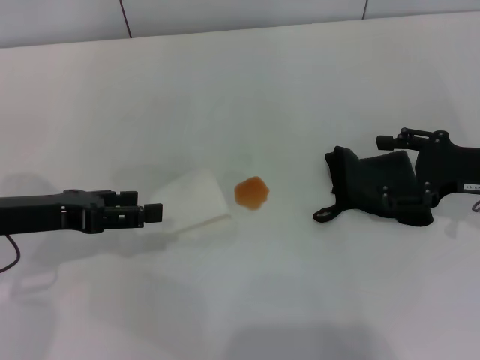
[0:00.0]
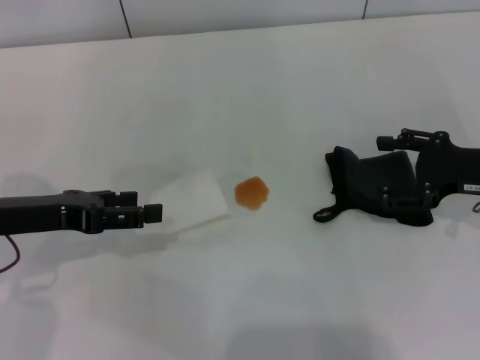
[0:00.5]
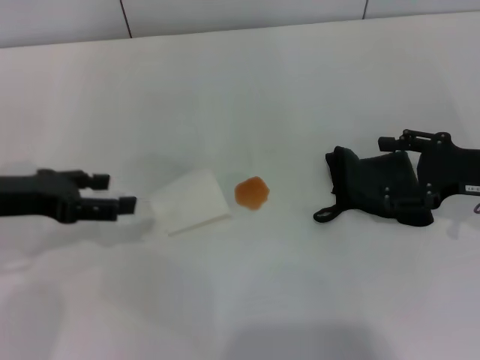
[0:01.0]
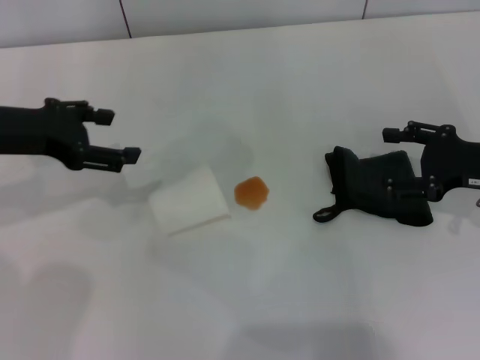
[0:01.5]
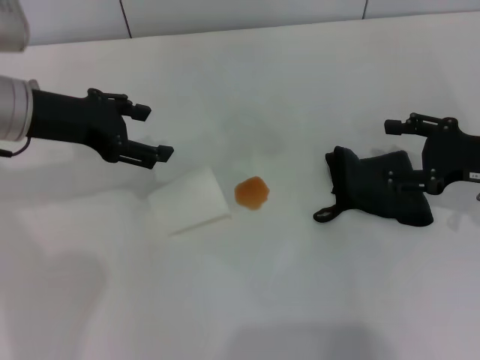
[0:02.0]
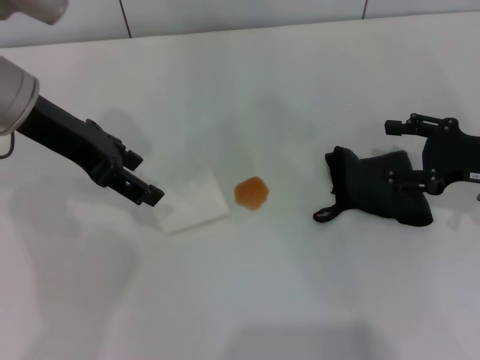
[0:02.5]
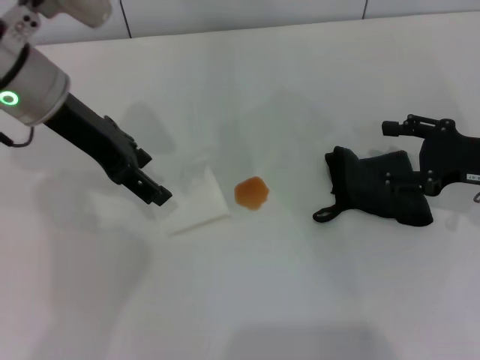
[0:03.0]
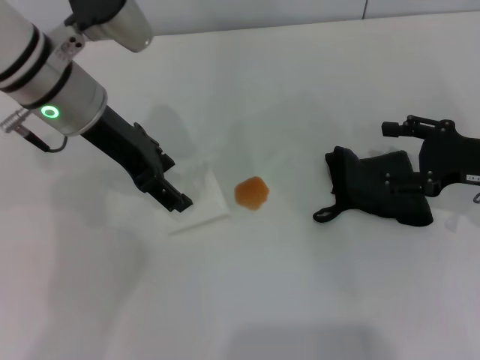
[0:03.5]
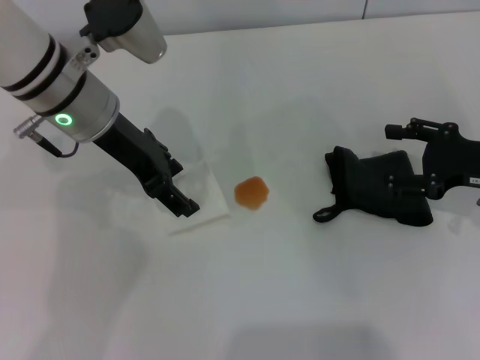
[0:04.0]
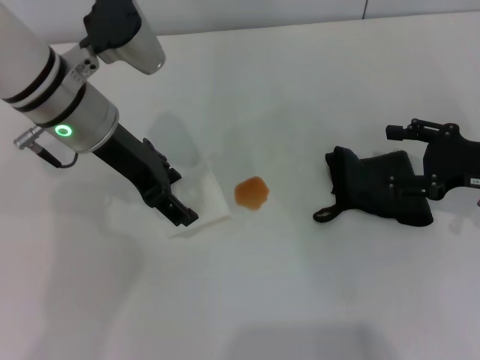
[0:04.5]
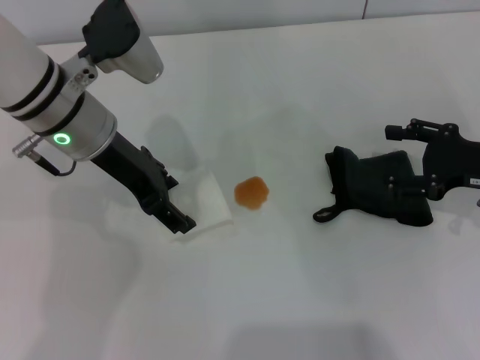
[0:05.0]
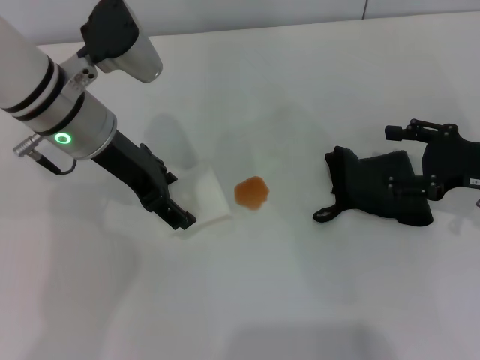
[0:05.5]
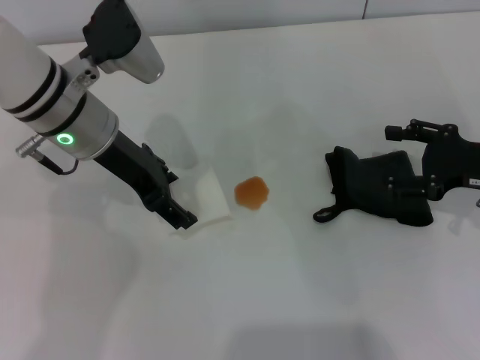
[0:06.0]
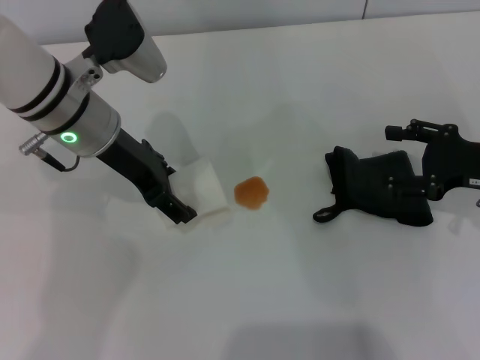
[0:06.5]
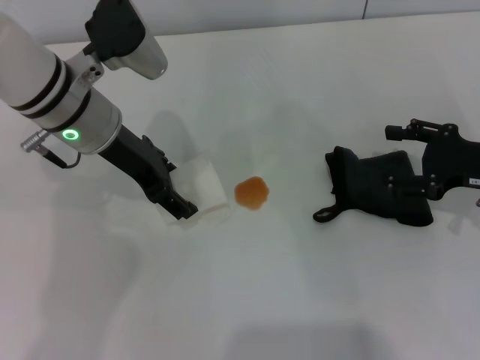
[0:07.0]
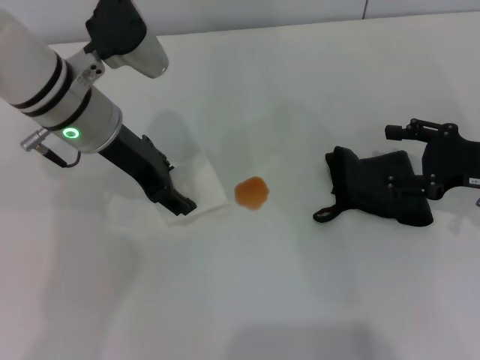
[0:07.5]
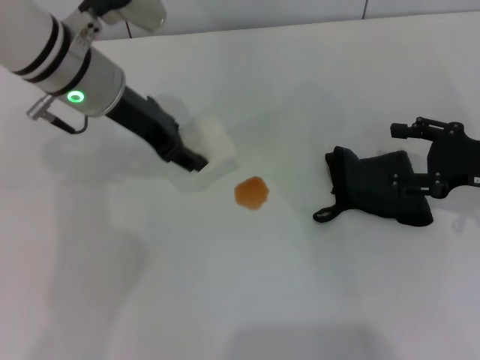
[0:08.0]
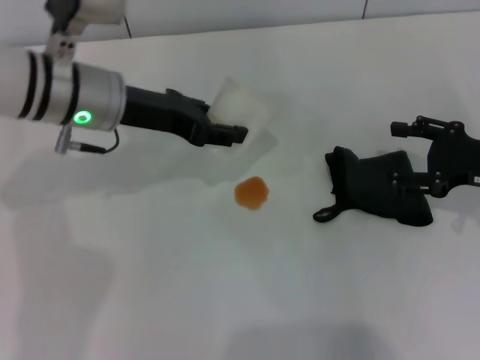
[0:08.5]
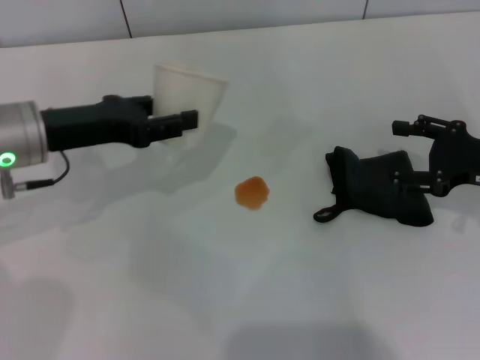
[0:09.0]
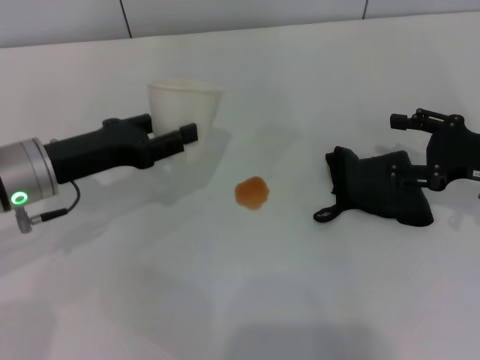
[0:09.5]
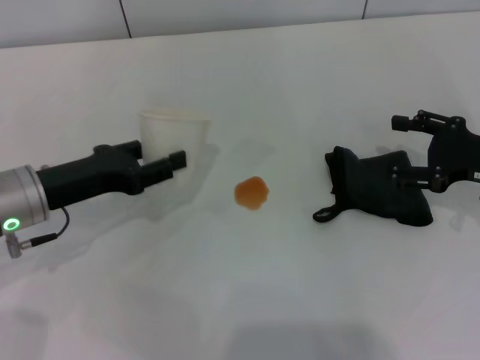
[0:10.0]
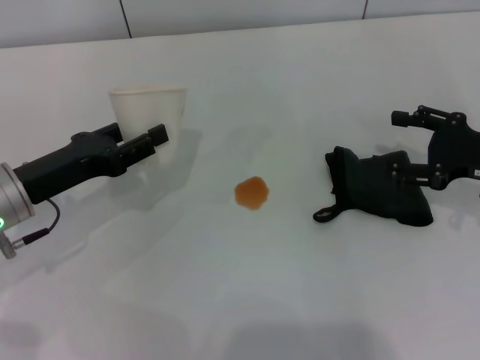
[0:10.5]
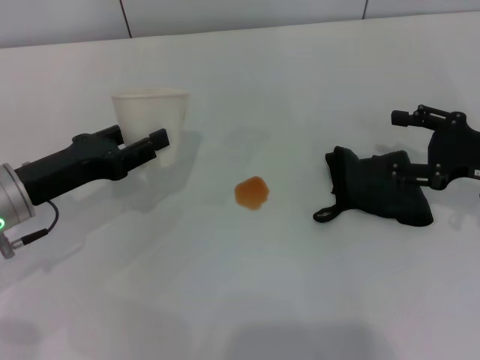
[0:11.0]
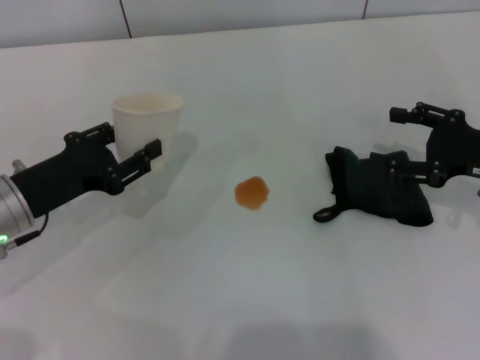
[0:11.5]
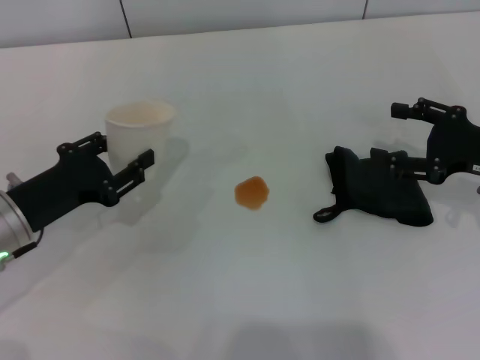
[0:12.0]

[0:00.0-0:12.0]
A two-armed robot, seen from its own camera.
Step, 0:00.0 to 0:07.0: Grasp the paper cup with the left gripper.
0:00.0 to 0:02.0: The left gripper is displaced forward and upward by about 10 cm.
0:02.0 to 0:04.0: The left gripper goes roughly 10 cm to the right.
0:04.0 to 0:06.0: The grippers move only a little.
0:06.0 to 0:08.0: The left gripper closes.
0:08.0 to 0:10.0: The left gripper travels to the left, downward and backward by roughly 15 cm.

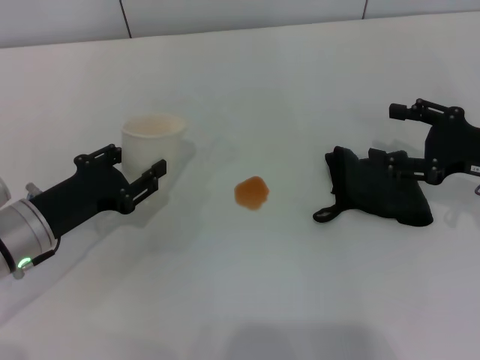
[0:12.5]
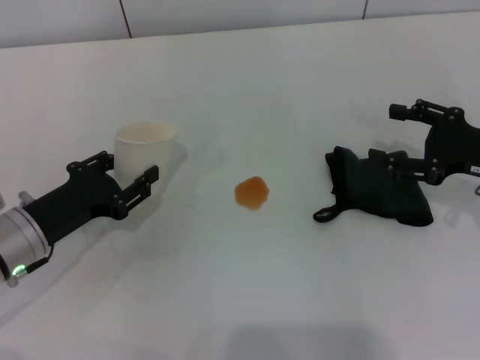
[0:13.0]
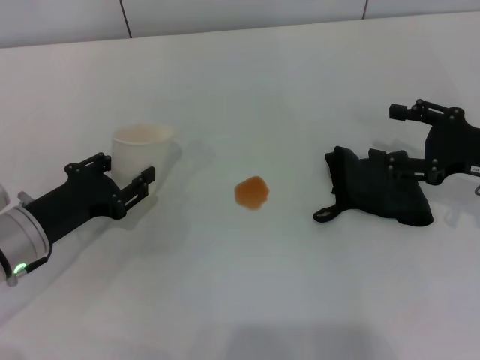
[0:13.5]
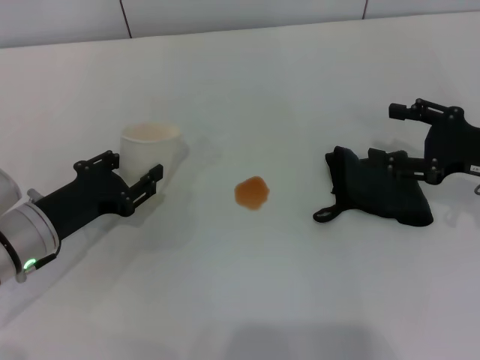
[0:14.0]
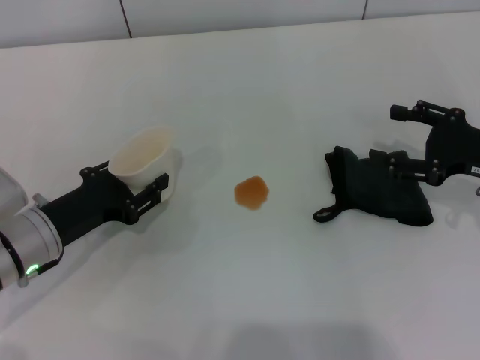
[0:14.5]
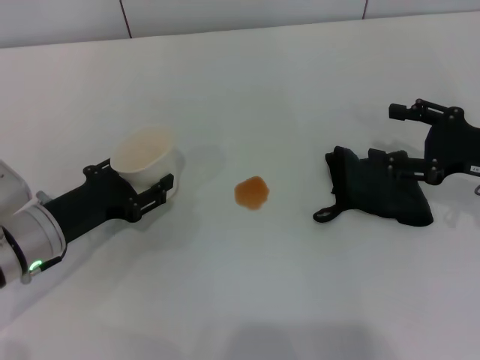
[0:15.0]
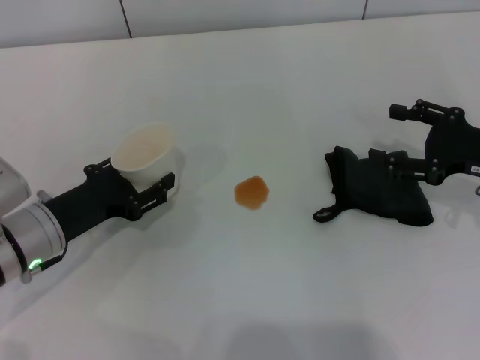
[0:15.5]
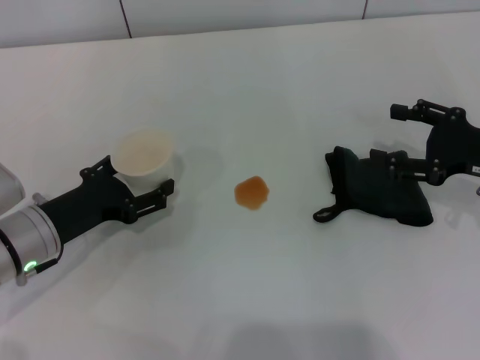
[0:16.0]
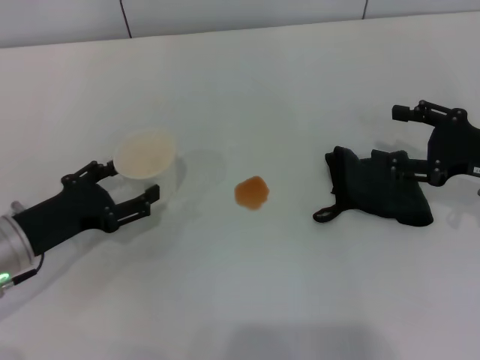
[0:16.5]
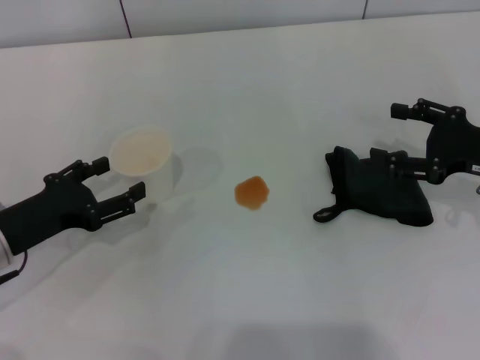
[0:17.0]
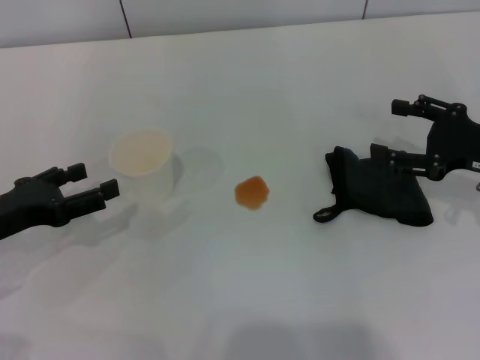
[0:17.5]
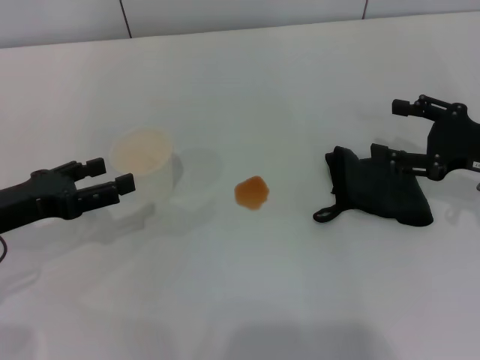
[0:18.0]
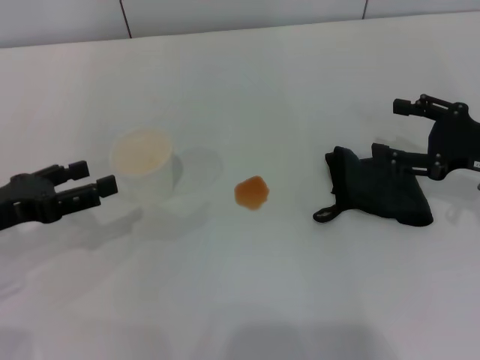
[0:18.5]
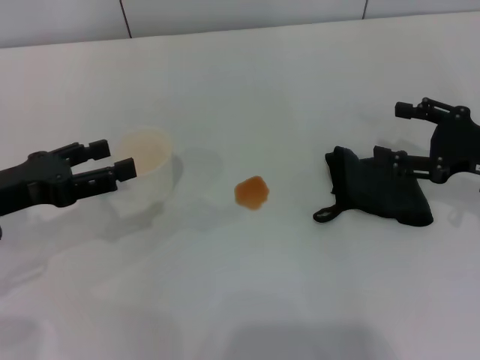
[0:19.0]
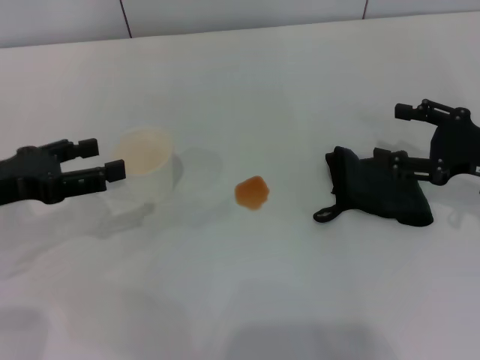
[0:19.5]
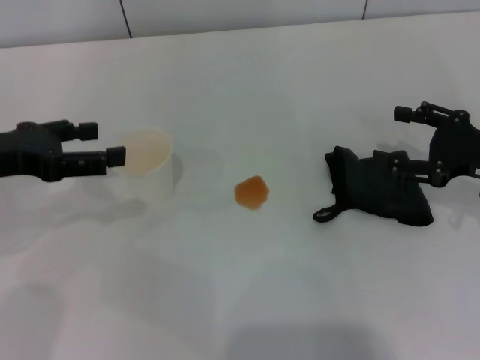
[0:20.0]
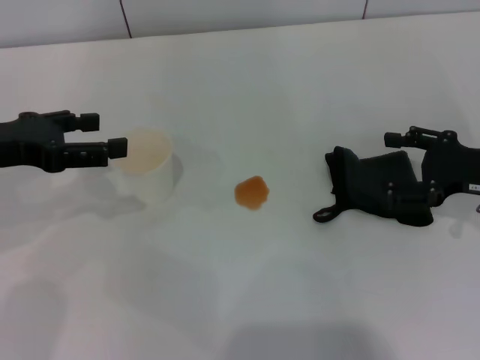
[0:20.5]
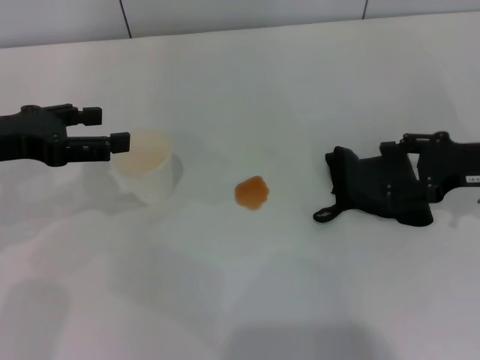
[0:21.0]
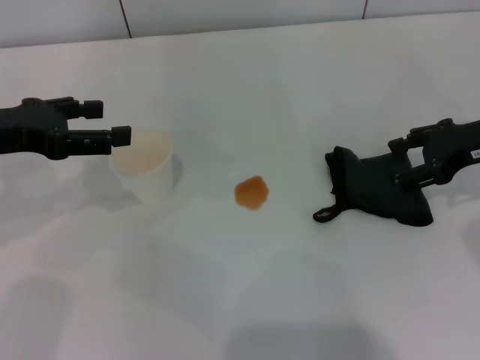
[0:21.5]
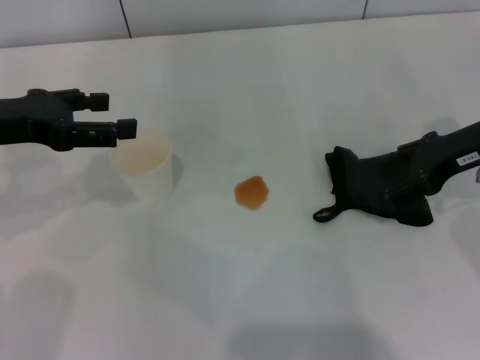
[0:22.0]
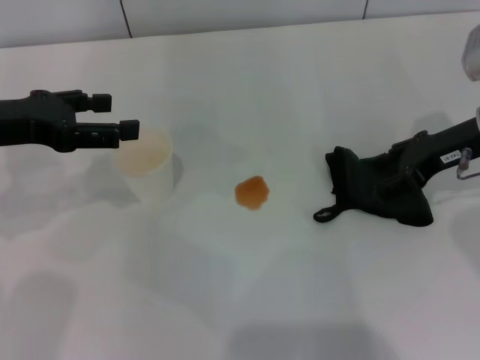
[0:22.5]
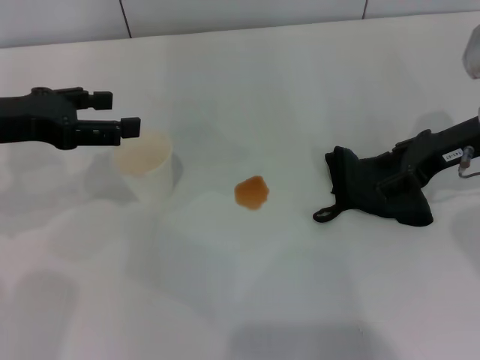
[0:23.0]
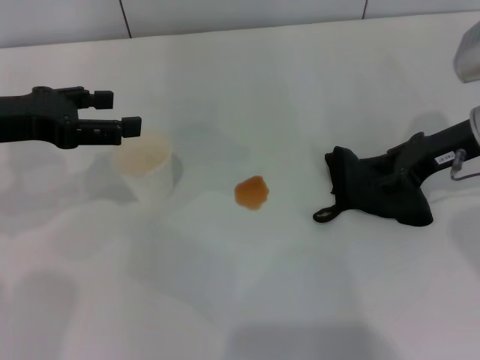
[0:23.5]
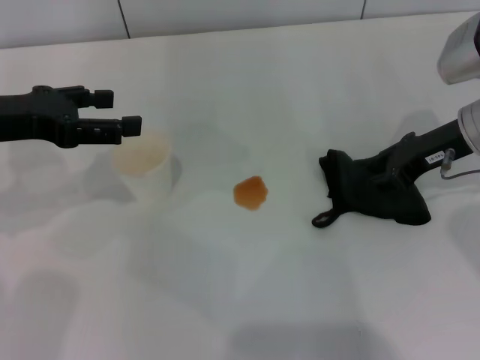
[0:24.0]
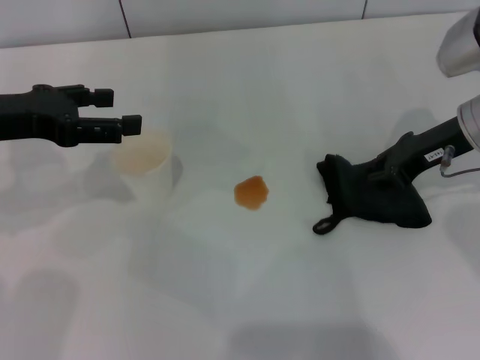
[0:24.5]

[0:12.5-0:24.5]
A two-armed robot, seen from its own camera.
Step, 0:12.5 to 0:17.0: Stand the paper cup upright with the left gripper.
0:12.5 to 0:14.5: Both grippers stay put.
0:14.5 to 0:16.5: The left gripper opens up.
0:16.5 to 0:18.5: The left gripper goes roughly 5 cm upward.
0:18.5 to 0:20.5: The left gripper travels upward and forward by about 10 cm.
0:20.5 to 0:22.5: The right gripper travels forward by about 5 cm.
0:22.5 to 0:24.5: The right gripper closes up.

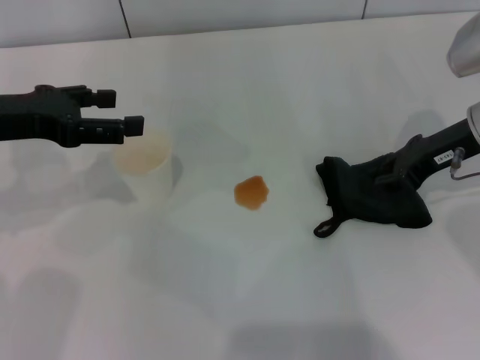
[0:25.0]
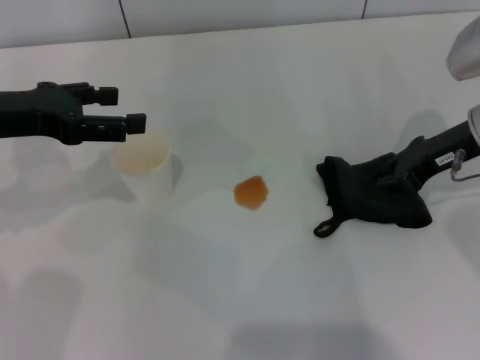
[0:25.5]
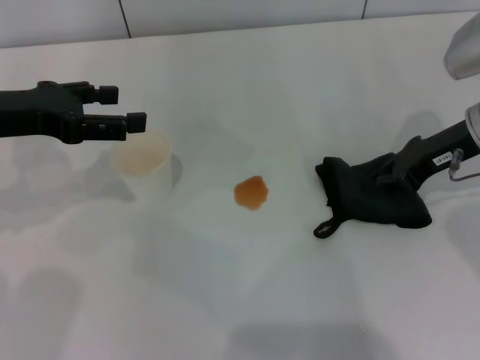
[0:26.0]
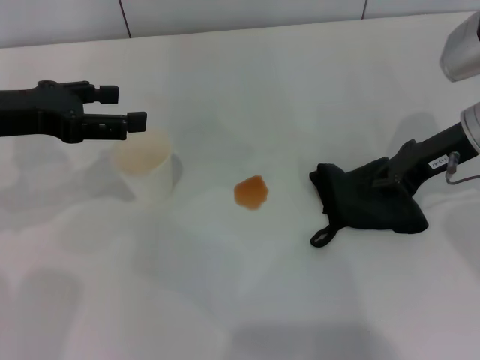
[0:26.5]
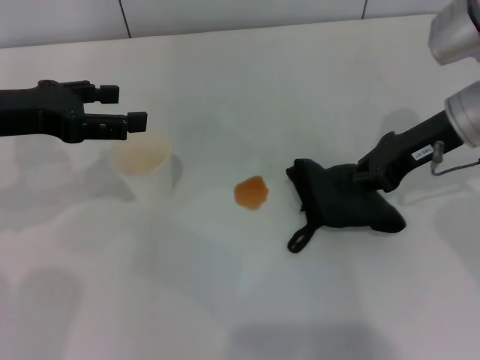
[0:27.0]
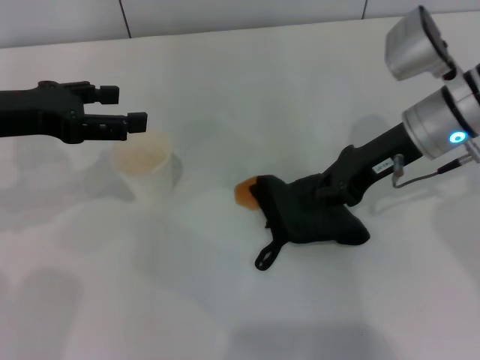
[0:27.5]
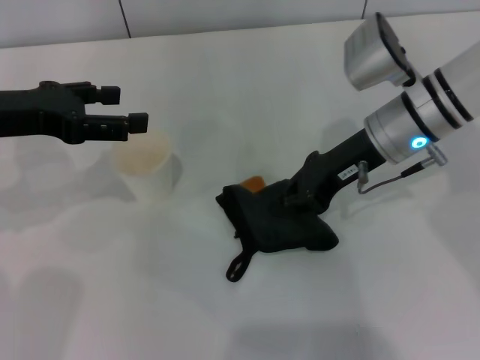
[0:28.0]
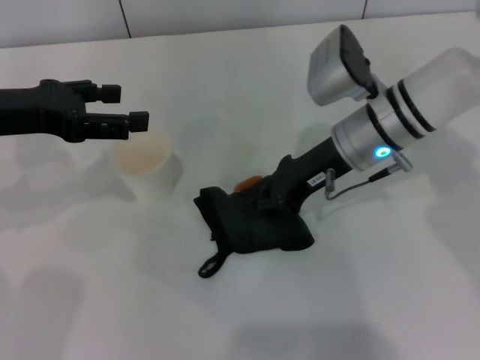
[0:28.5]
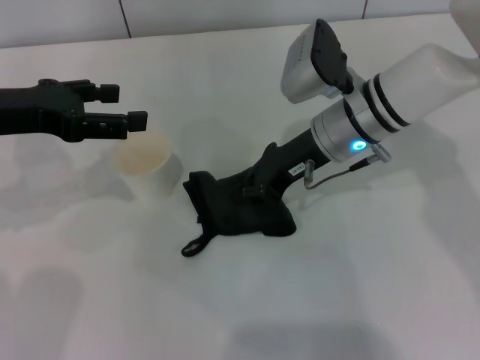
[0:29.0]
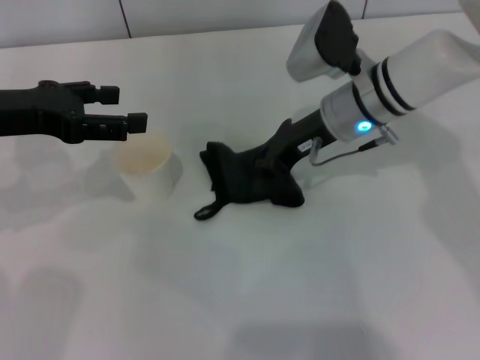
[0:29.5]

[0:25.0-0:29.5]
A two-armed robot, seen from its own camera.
0:25.0 to 0:27.0: The grippers move only a little.
0:27.0 to 0:29.5: The right gripper moves to the left, approximately 10 cm.
